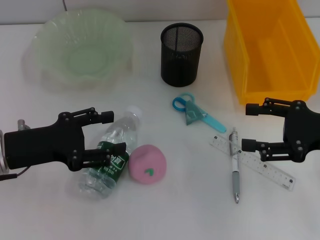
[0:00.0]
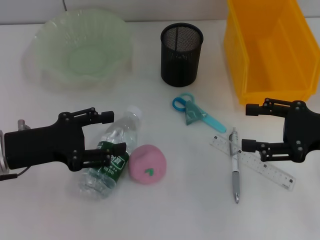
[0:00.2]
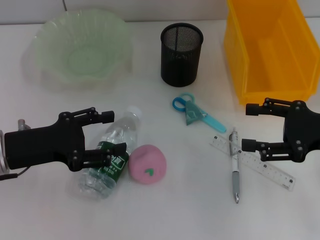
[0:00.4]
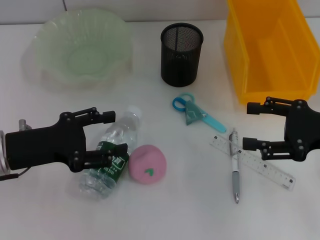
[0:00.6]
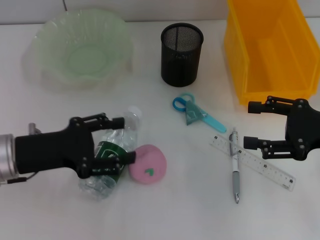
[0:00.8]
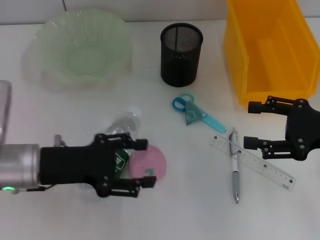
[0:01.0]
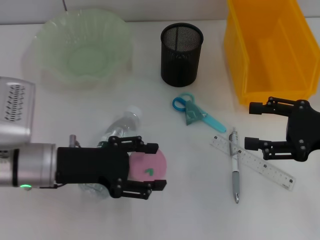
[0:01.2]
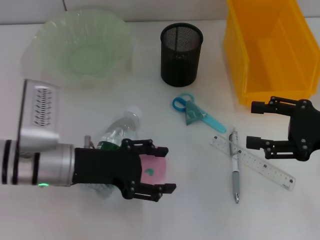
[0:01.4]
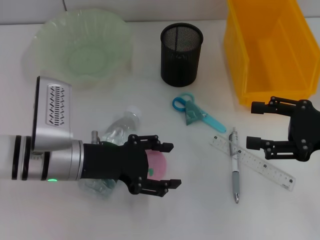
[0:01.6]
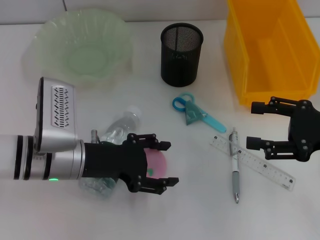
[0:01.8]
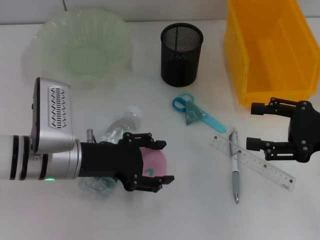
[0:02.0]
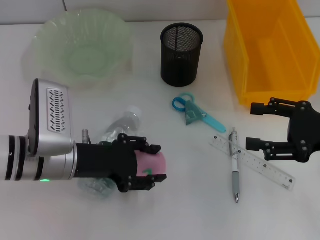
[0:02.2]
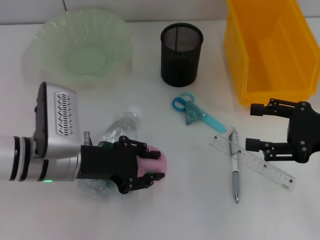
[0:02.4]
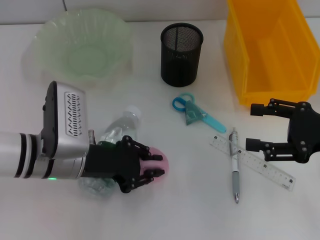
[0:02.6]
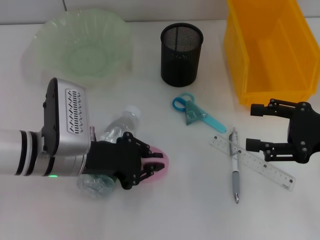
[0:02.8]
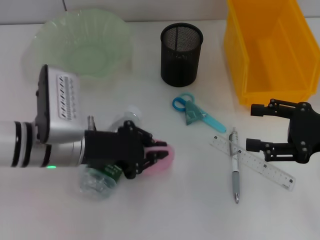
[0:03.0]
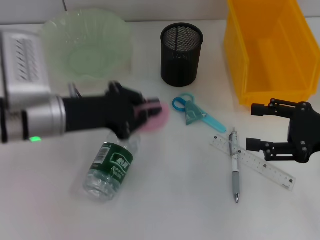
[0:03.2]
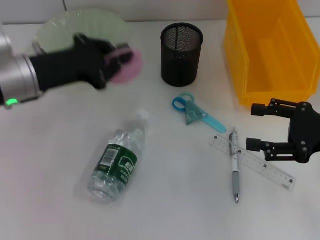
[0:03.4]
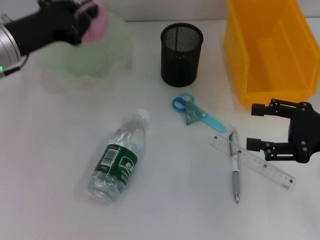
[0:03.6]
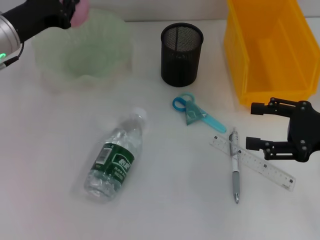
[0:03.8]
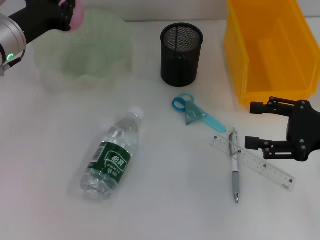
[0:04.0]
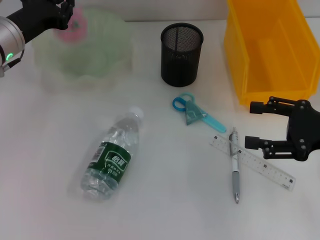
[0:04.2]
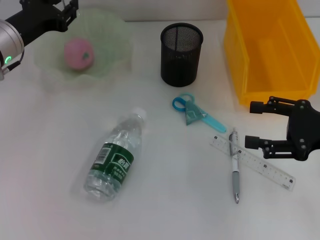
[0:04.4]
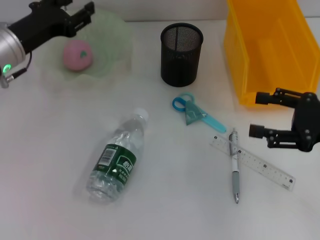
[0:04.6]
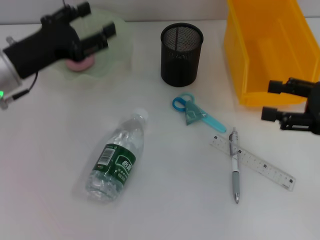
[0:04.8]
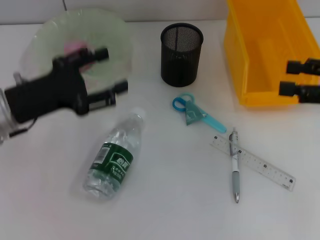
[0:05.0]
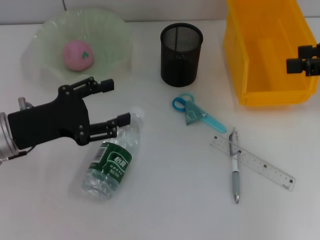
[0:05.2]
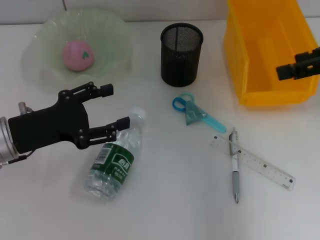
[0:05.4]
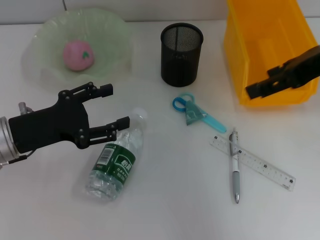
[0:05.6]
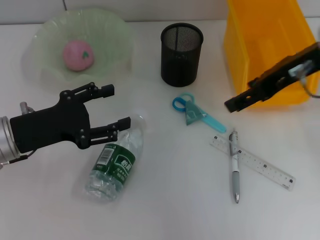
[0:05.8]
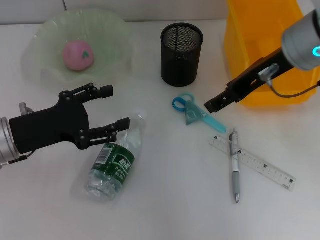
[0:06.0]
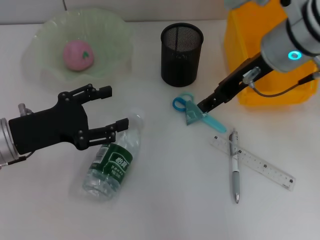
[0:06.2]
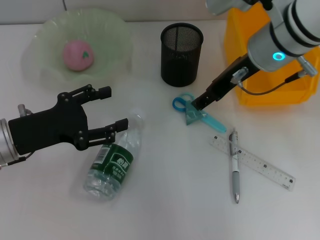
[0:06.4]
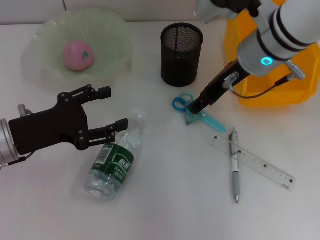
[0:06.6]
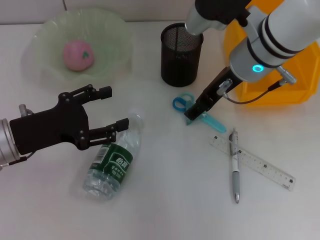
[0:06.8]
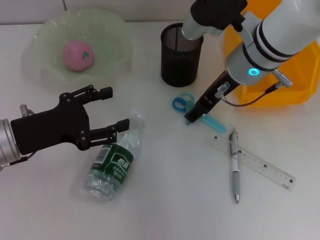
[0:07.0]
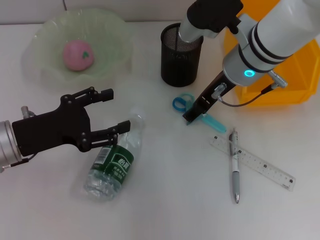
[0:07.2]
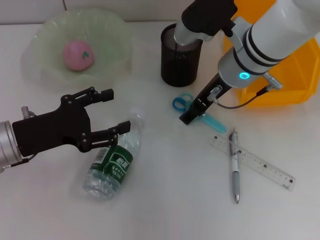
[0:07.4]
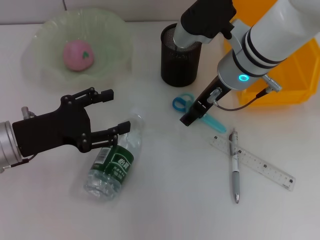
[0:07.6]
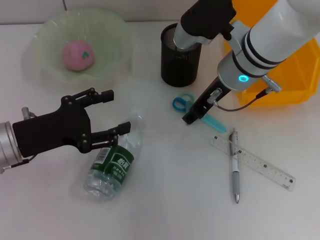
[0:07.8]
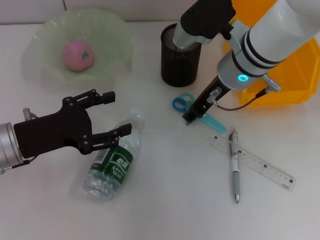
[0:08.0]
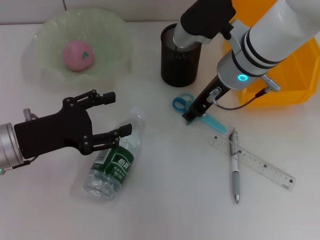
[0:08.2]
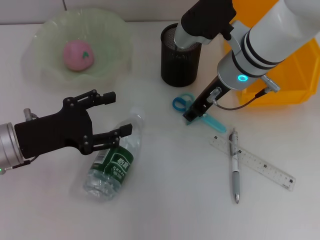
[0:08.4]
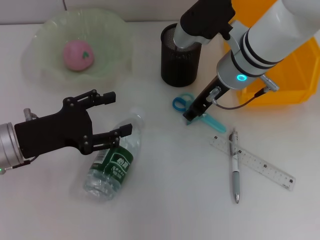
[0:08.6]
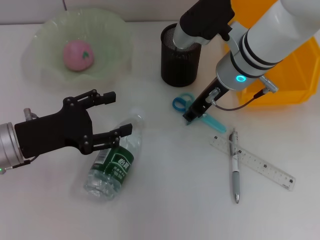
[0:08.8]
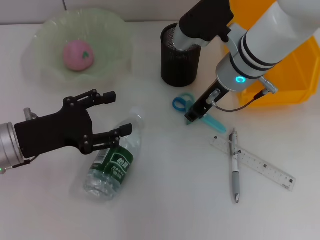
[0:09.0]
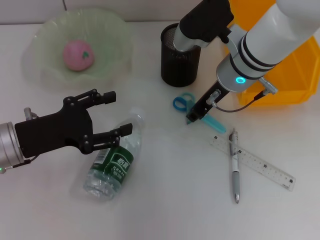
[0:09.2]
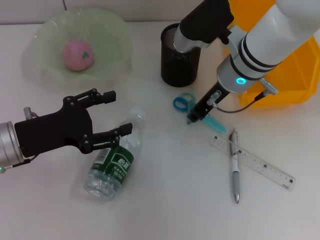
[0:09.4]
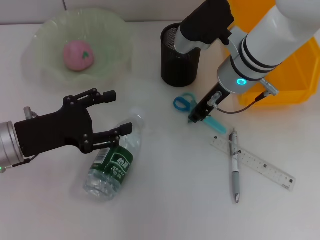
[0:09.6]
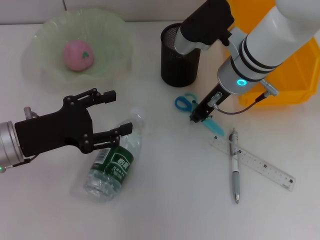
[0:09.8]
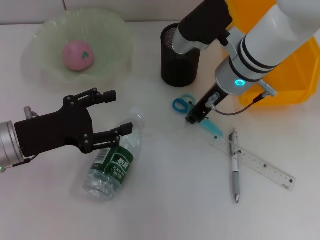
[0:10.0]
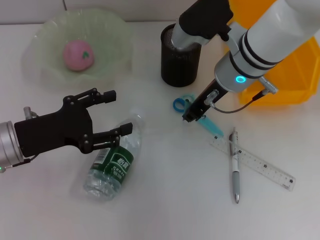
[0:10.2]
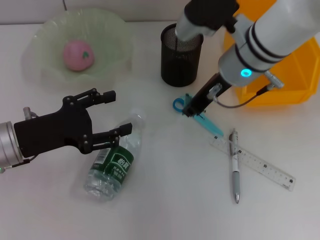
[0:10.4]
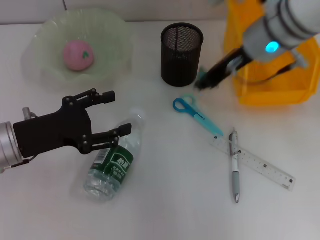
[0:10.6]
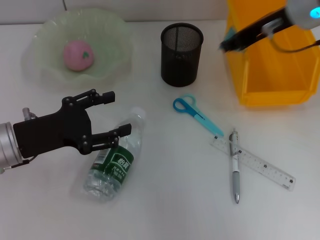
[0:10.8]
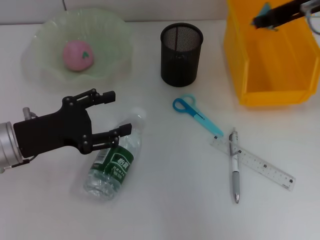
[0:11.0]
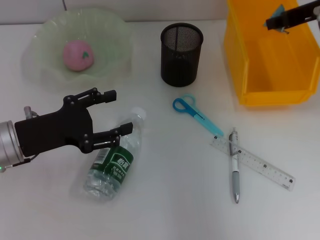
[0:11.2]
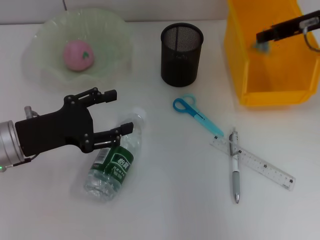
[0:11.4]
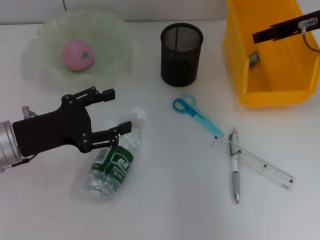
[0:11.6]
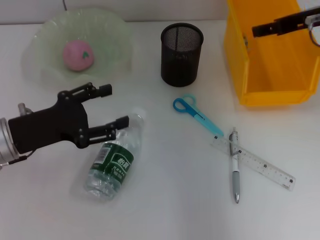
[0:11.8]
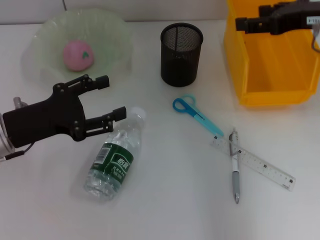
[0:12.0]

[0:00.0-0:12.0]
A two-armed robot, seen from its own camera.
Step, 0:00.0 to 0:02.6: Grab the peach with the left hand.
Step, 0:02.8 to 0:04.2: Place the peach into the fruit bowl with the left hand.
Step, 0:04.6 to 0:09.8: Grab the plastic with the right hand.
Step, 0:10.0 to 0:11.6: Place the plastic into the trash can with the right hand.
0:00.0 to 0:01.6: The left gripper heads to the right, covering some 10 cm.
0:01.6 to 0:03.0: The left gripper closes up.
0:03.0 to 0:04.4: The left gripper goes approximately 15 cm forward and to the left.
0:04.4 to 0:06.0: The left gripper heads backward, covering about 15 cm, and opens; the right gripper travels to the left, upward and forward by approximately 20 cm.
0:06.0 to 0:07.6: The right gripper heads downward and to the left, covering about 10 cm.
0:07.6 to 0:09.0: The right gripper closes.
0:09.0 to 0:10.4: The grippers move only a little.
0:10.4 to 0:12.0: The right gripper is displaced to the right by roughly 15 cm, and opens its fingers.

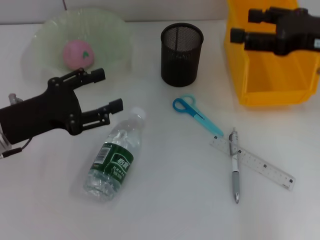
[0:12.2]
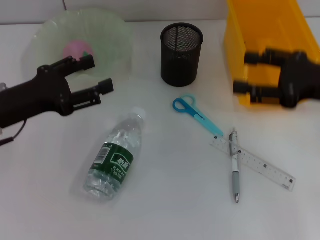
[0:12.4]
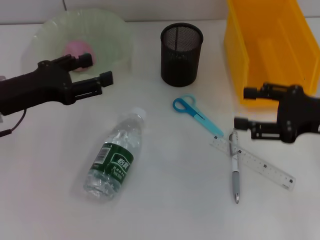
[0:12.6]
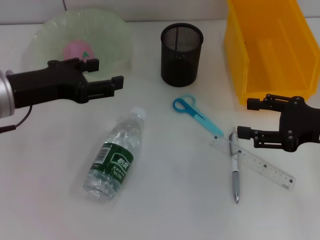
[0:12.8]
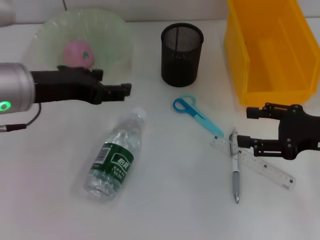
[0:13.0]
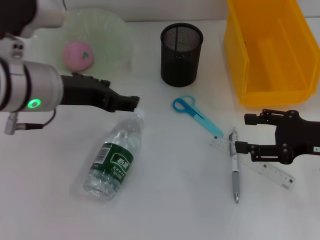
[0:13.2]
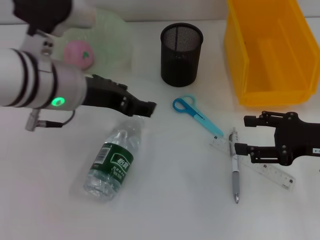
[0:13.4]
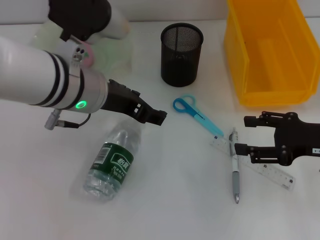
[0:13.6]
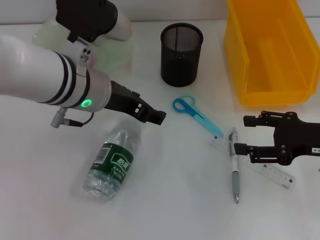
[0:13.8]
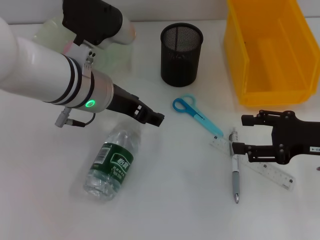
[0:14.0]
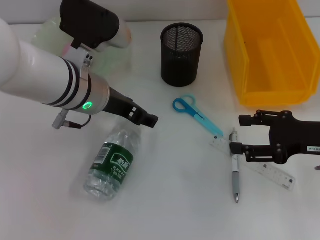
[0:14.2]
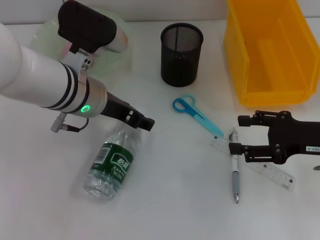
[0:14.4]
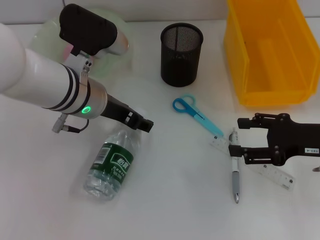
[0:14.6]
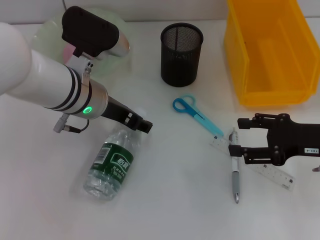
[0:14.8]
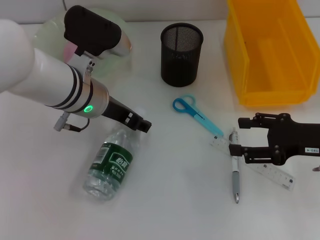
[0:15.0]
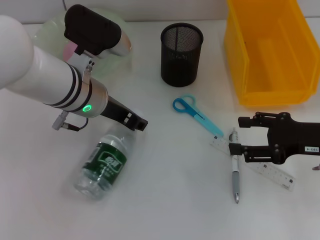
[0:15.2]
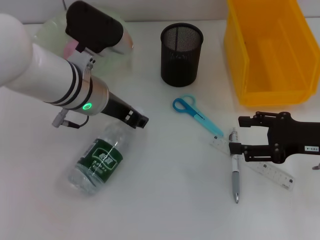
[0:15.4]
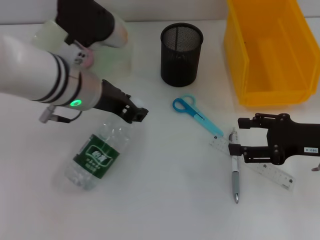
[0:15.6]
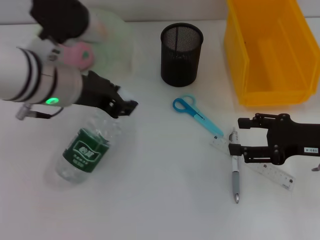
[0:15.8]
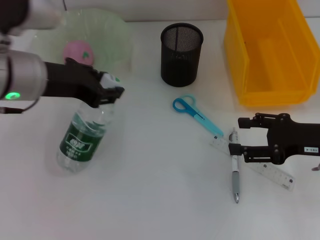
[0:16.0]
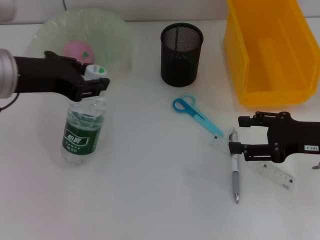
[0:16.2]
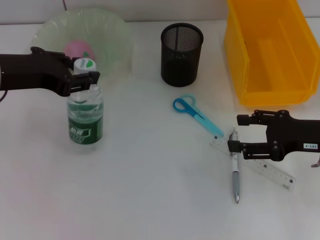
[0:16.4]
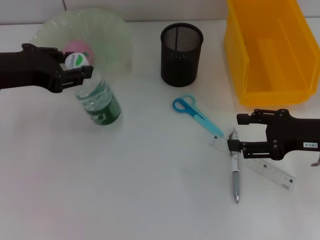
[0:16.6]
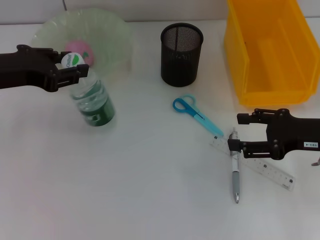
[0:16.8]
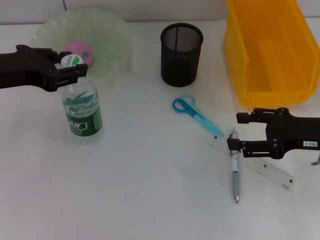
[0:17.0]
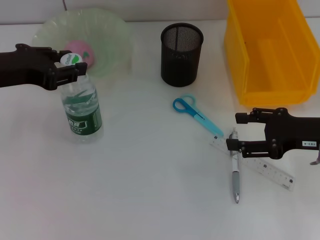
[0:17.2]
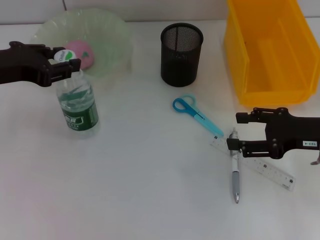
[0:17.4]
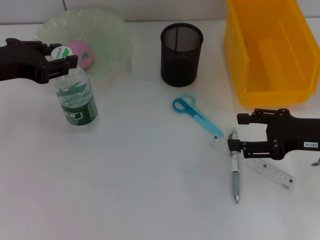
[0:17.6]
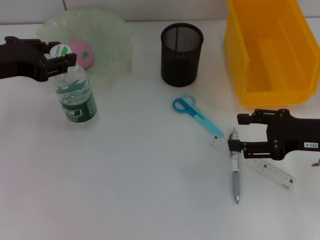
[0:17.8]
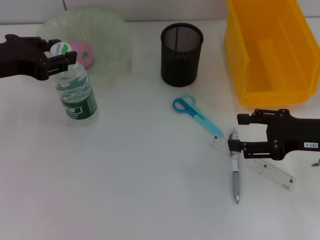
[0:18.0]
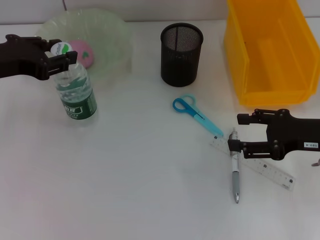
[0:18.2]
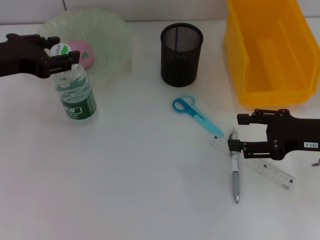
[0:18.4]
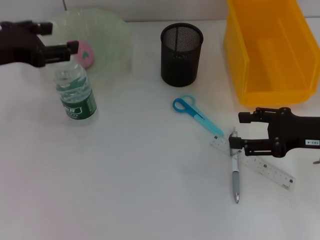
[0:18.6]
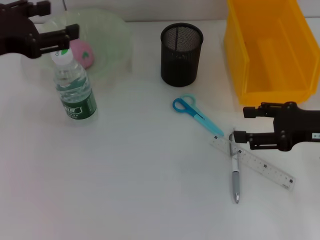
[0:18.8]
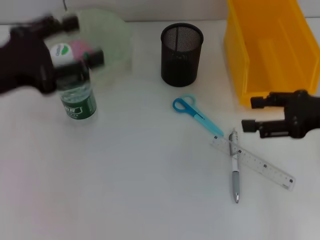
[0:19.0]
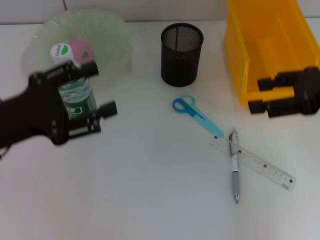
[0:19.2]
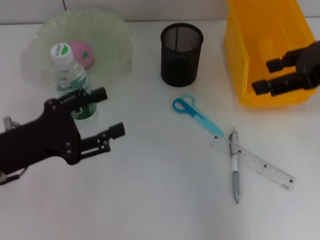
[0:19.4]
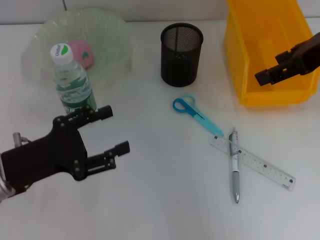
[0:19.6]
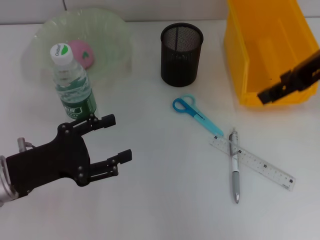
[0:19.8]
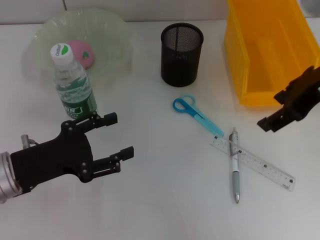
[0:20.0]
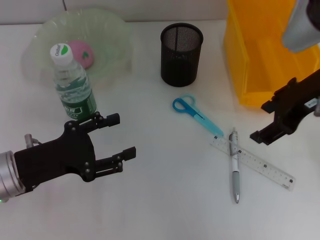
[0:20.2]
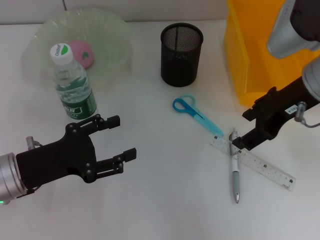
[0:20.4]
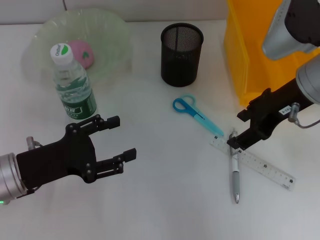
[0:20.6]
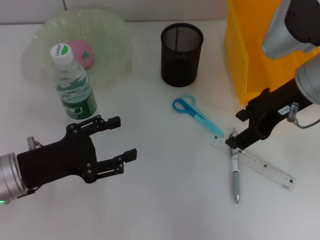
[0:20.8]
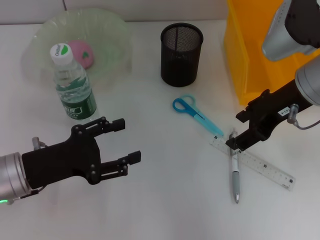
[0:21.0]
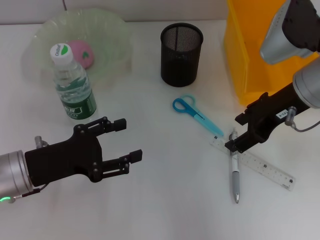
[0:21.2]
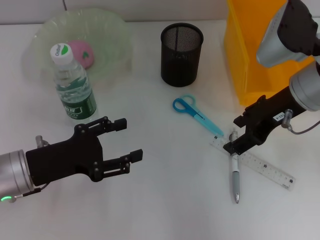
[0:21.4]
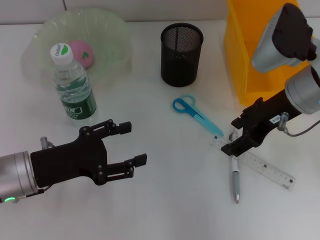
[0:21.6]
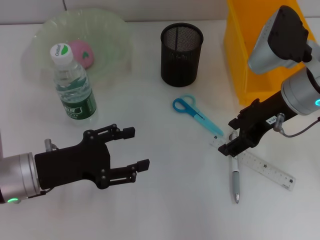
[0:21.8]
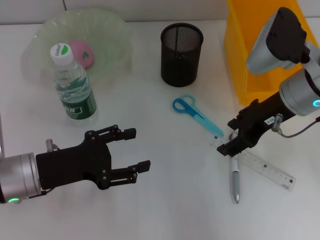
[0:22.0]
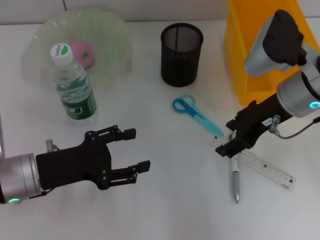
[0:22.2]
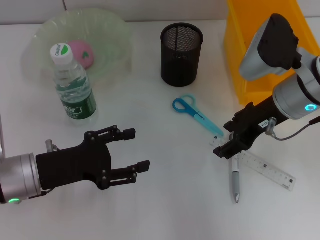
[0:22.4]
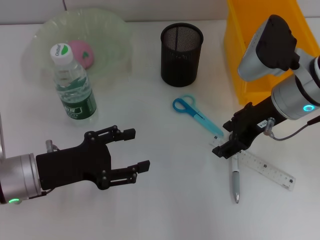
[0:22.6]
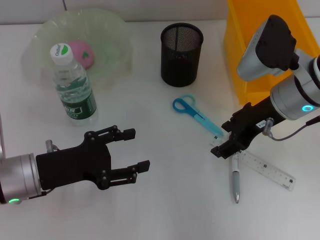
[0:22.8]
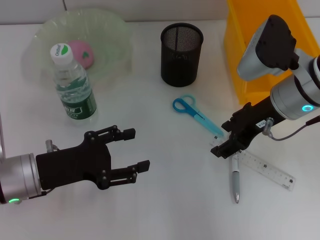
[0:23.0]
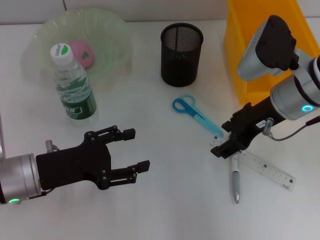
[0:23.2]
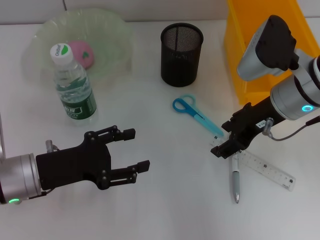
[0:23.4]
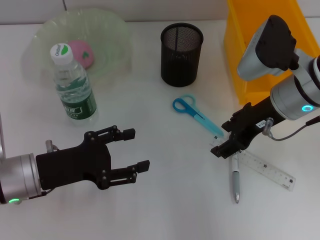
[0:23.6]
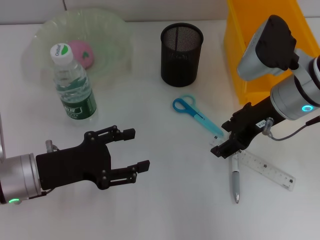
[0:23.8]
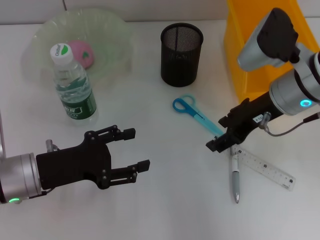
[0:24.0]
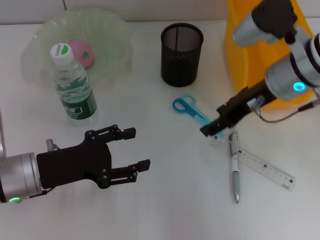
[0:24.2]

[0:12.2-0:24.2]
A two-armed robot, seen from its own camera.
Step, 0:12.2 to 0:15.2: Grab the water bottle with the left hand.
Step, 0:15.4 to 0:18.2: Place the water bottle on the table with the left hand.
0:12.2 to 0:13.8: The right gripper is displaced downward and backward by roughly 10 cm; the left gripper travels to the right and upward by some 15 cm.
0:13.8 to 0:15.2: The left gripper moves roughly 5 cm.
0:15.2 to 0:16.6: The left gripper moves to the left and upward, approximately 15 cm.
0:16.6 to 0:18.2: The grippers move only a little.
0:18.2 to 0:19.8: The right gripper travels upward by approximately 15 cm, while the left gripper goes some 15 cm downward and backward, and opens.
0:19.8 to 0:21.2: The right gripper is displaced downward by roughly 10 cm.
0:21.2 to 0:24.2: The grippers move only a little.
